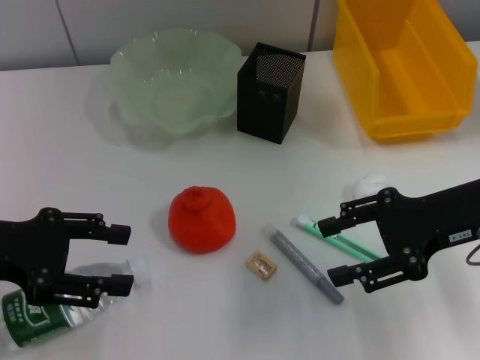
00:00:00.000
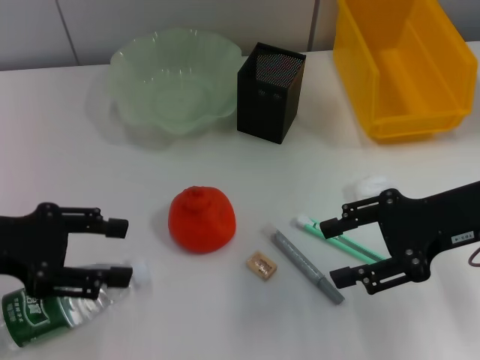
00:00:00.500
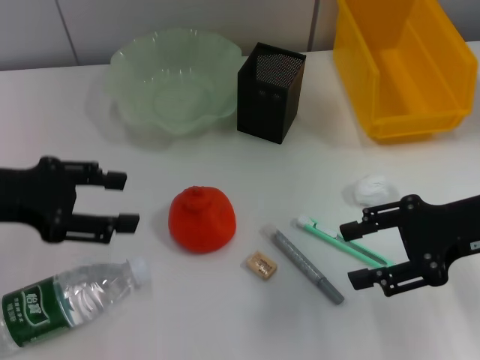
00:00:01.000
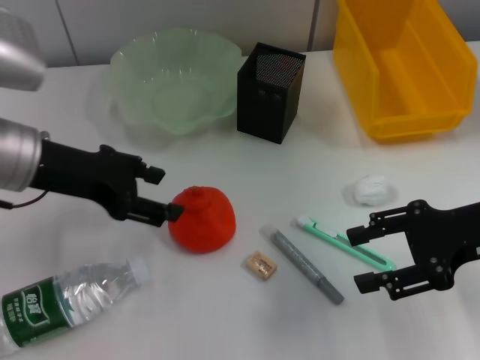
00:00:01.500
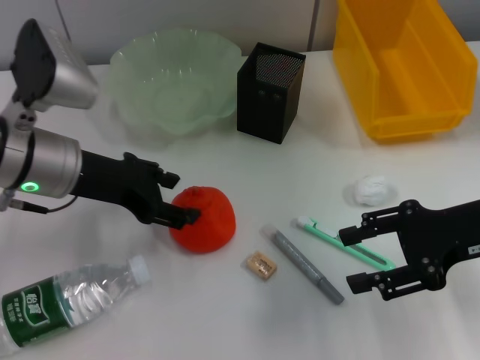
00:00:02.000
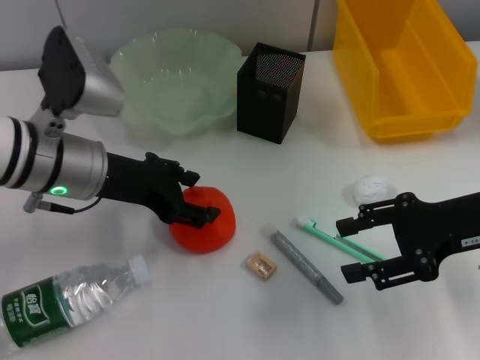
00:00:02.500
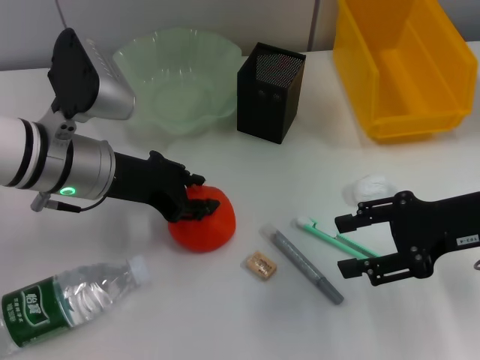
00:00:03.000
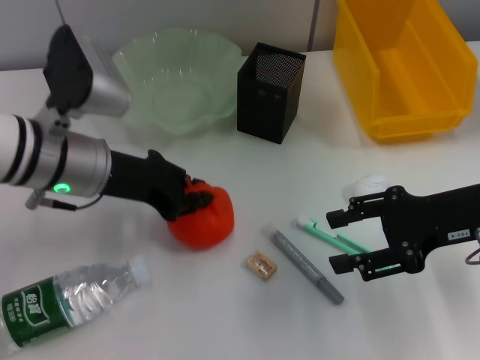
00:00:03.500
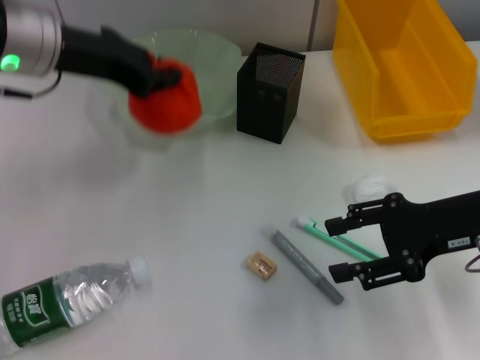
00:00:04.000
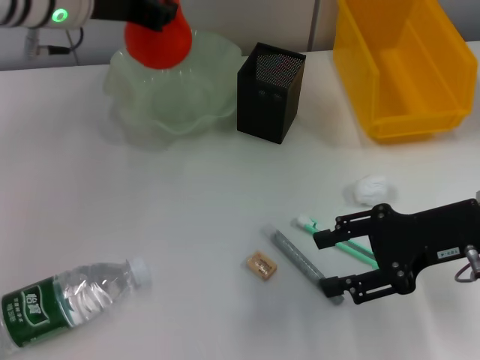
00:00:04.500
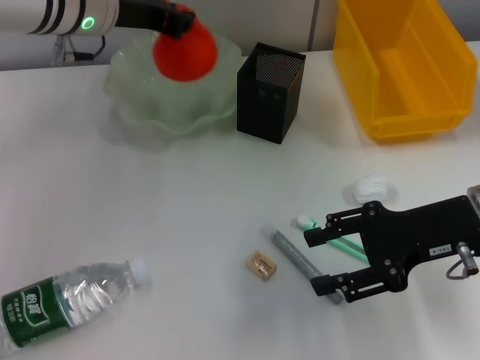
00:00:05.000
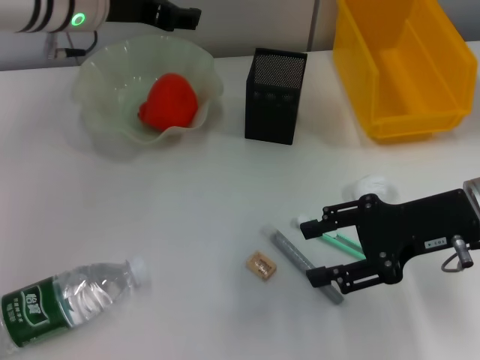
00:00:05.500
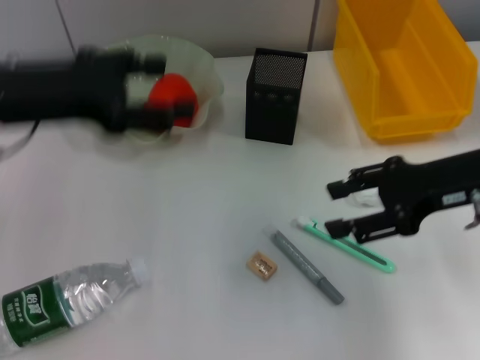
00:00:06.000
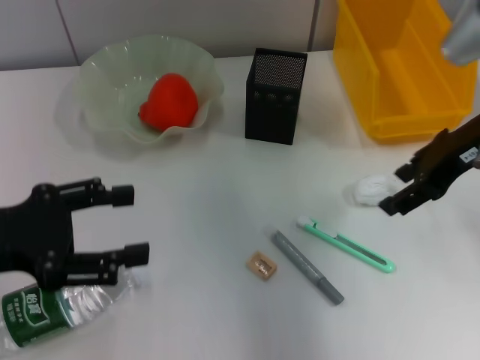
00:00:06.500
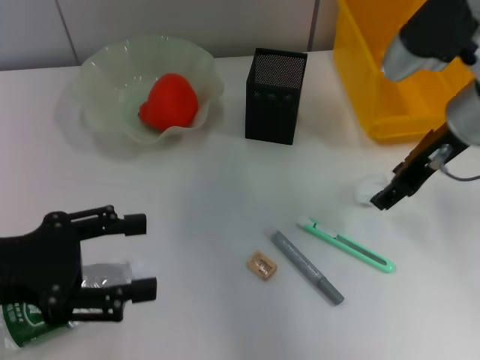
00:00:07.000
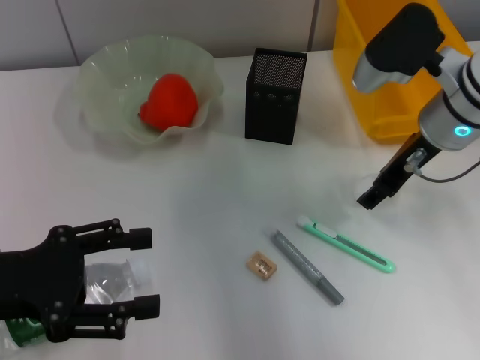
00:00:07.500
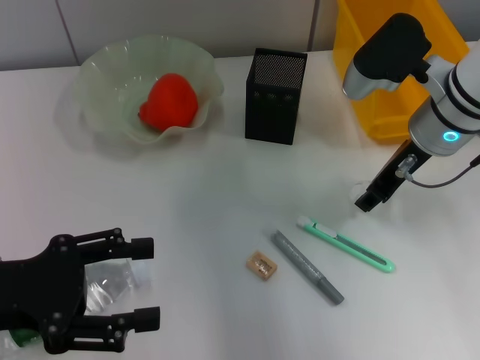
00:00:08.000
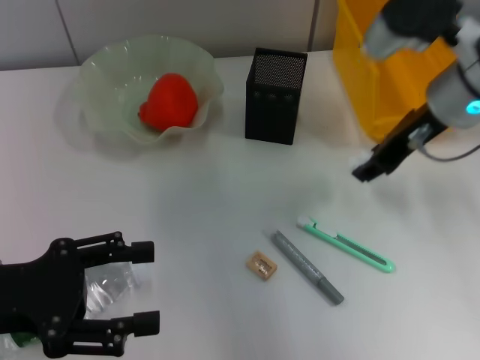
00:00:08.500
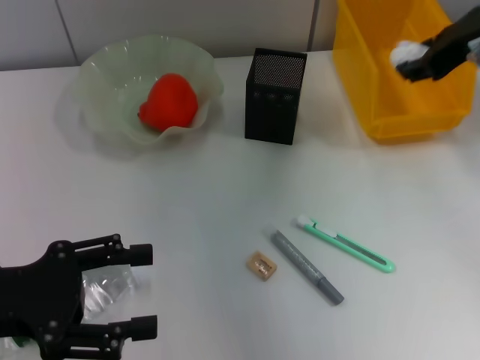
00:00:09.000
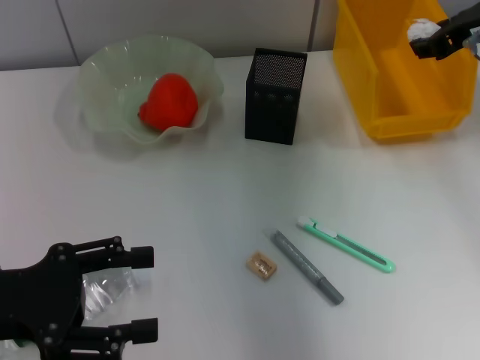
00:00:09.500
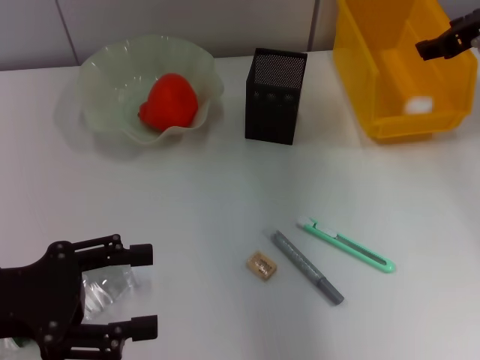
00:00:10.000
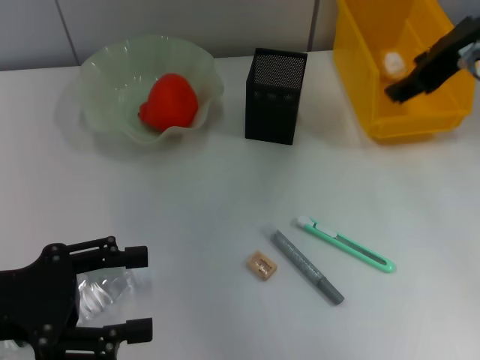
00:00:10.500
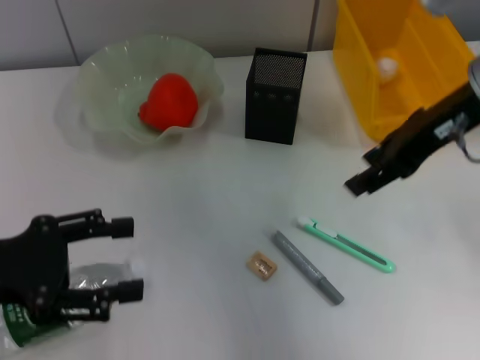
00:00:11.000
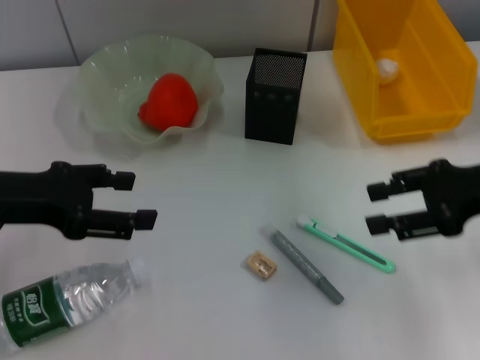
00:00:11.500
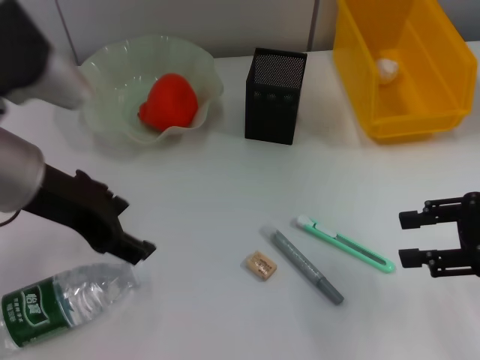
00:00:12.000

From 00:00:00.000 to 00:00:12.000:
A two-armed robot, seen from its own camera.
Step, from 00:00:00.000 to 00:00:03.000: Grab the orange with the left hand.
Step, from 00:00:03.500 to 00:00:05.000: Place the orange into the fruit bowl with the left hand.
Step, from 00:00:05.500 to 00:00:08.000: Grab the paper ball with the right hand.
Step, from 00:00:08.500 to 00:00:10.000: Place the paper ball into the trash can with the right hand.
From 00:00:00.000 to 00:00:02.000: The left gripper is displaced to the right and forward by roughly 10 cm.
From 00:00:02.000 to 00:00:04.000: The left gripper travels upward by some 5 cm, and closes its fingers.
From 00:00:04.000 to 00:00:06.000: The left gripper moves about 5 cm, and opens its fingers.
From 00:00:06.000 to 00:00:08.000: The right gripper moves forward and to the left, some 10 cm. Meanwhile the left gripper shifts roughly 15 cm backward and downward.
From 00:00:08.000 to 00:00:10.000: The right gripper goes some 10 cm to the right and upward.
From 00:00:10.000 to 00:00:12.000: The left gripper shifts roughly 15 cm to the right, forward and upward; the right gripper shifts about 20 cm backward and downward.

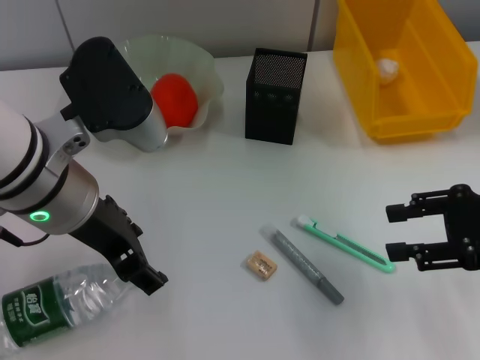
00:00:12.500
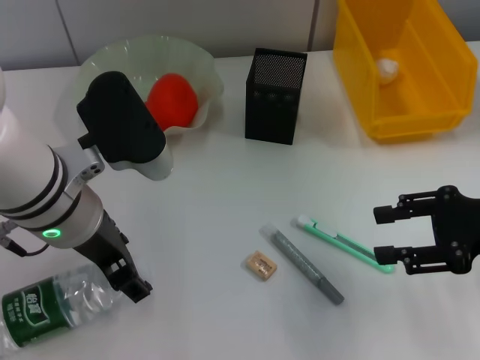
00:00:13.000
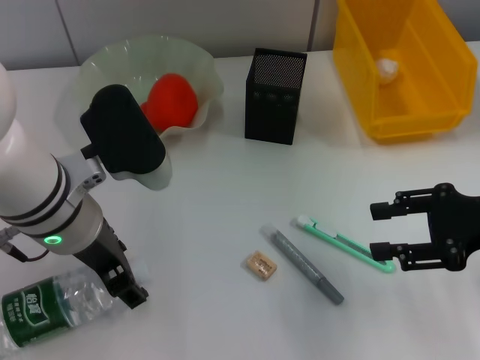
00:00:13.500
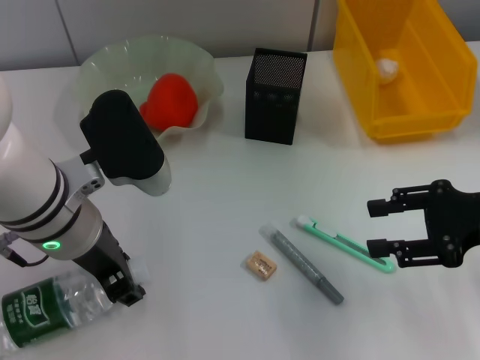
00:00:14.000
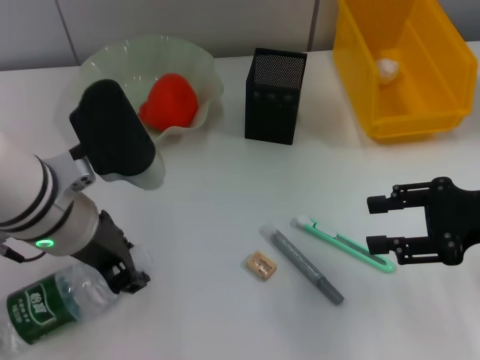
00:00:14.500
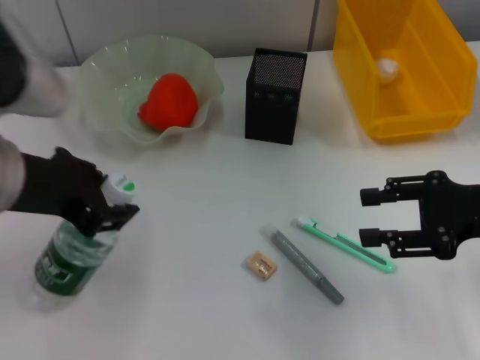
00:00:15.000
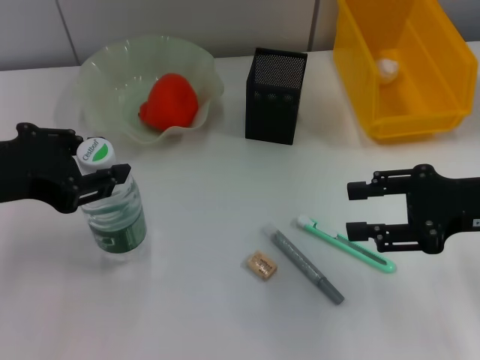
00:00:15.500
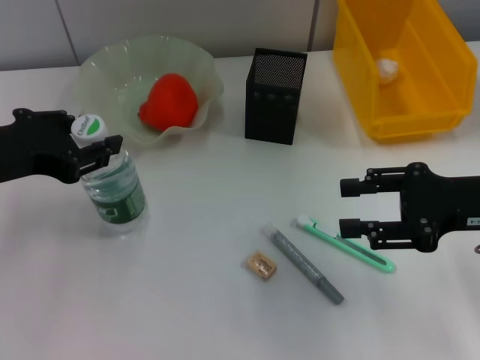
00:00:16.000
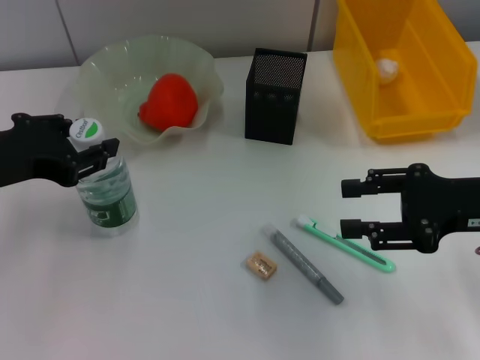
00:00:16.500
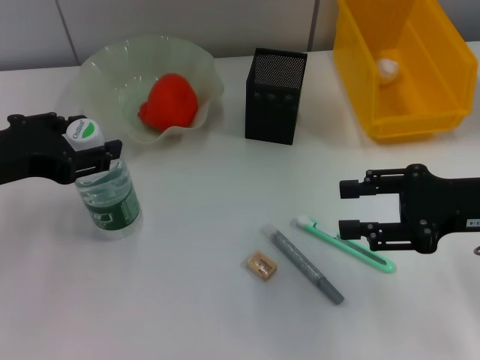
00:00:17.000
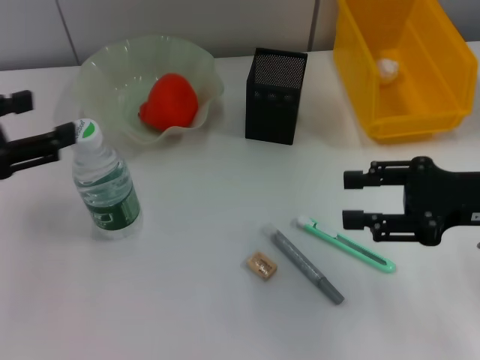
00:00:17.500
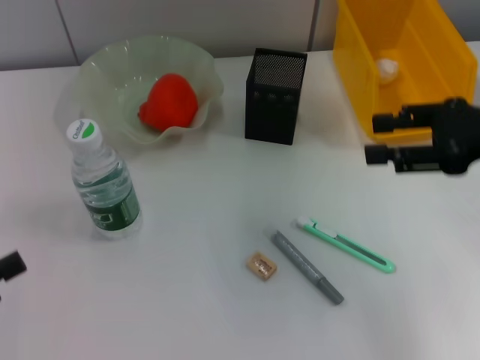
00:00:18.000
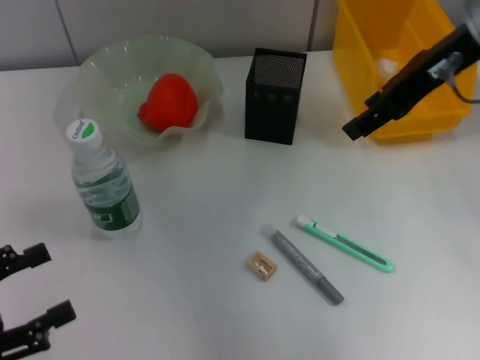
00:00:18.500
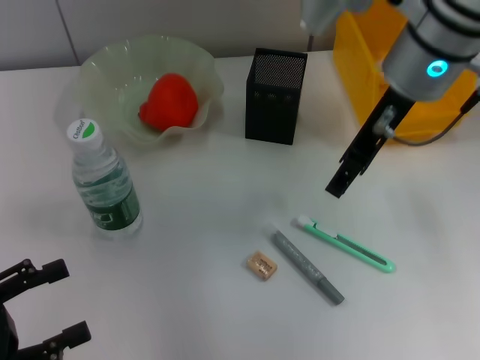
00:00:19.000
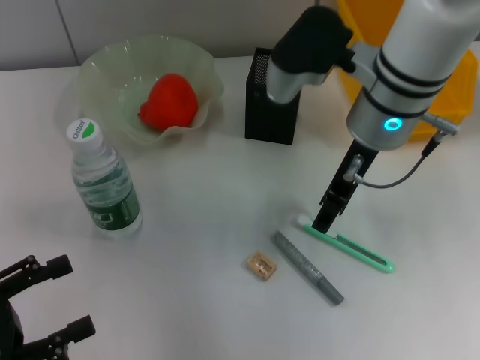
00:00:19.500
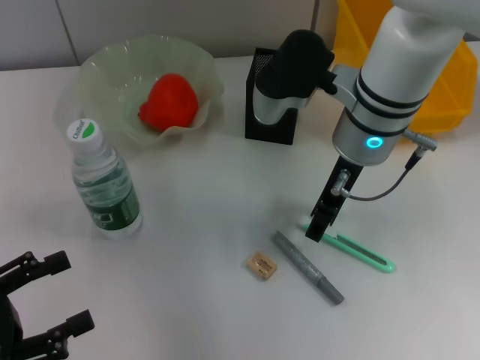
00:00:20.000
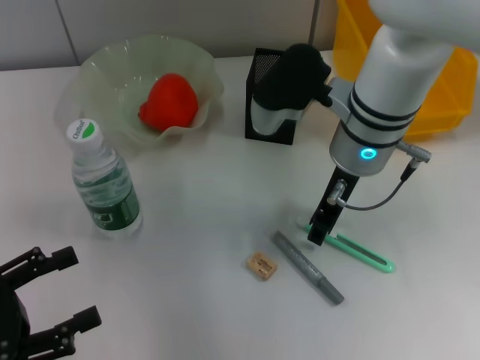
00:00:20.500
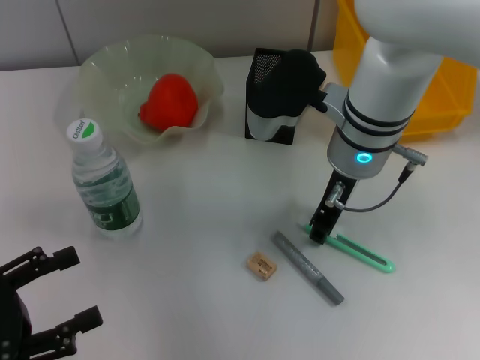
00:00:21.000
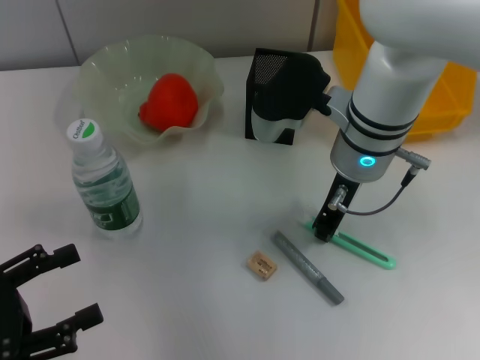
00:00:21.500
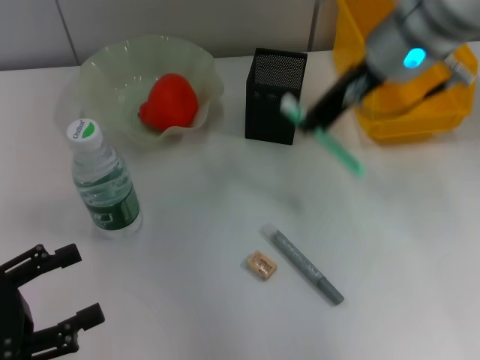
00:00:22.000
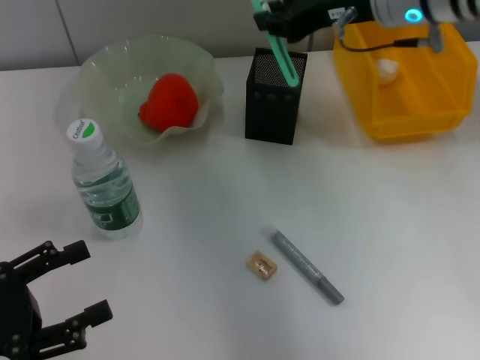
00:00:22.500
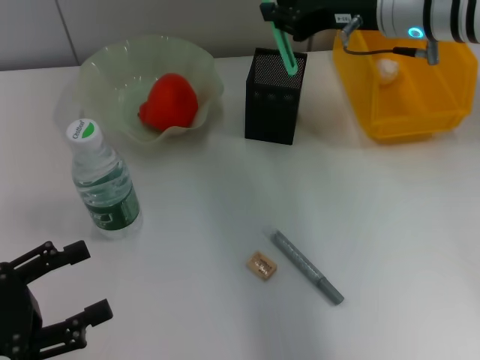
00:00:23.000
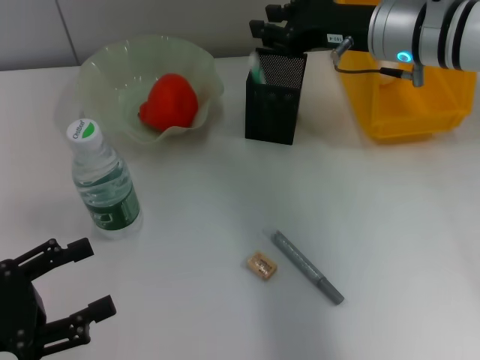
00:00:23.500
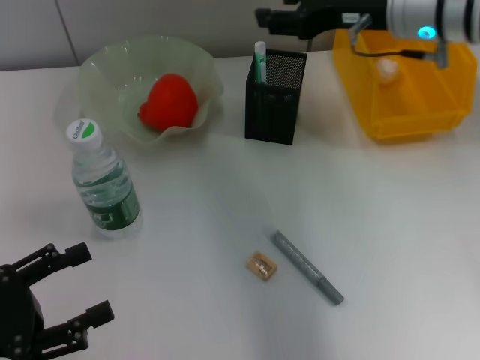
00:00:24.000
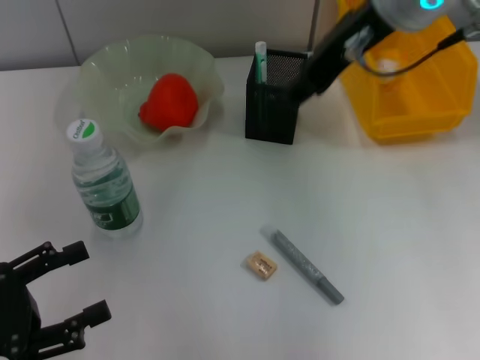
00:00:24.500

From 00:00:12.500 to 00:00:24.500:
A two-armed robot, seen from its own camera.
Step, from 00:00:12.500 to 00:00:14.500: Grab the water bottle with the left hand.
Step, from 00:00:15.000 to 00:00:17.000: Place the water bottle on the table with the left hand.
Step, from 00:00:17.500 to 00:00:21.500: Grab the blue utility knife with the right hand.
Step, from 00:00:22.000 to 00:00:23.500: Place the blue utility knife into the pen holder with the right hand.
From 00:00:12.500 to 00:00:14.500: The left gripper closes.
From 00:00:14.500 to 00:00:16.500: The left gripper travels to the left by approximately 10 cm.
From 00:00:16.500 to 00:00:18.500: The right gripper heads upward, forward and to the left, covering about 20 cm, while the left gripper travels backward, to the left and downward by roughly 15 cm, and opens up.
From 00:00:18.500 to 00:00:20.500: The right gripper moves downward and to the left, some 15 cm.
From 00:00:20.500 to 00:00:22.500: The right gripper shifts approximately 10 cm upward and to the right, and closes.
From 00:00:22.500 to 00:00:24.500: The right gripper moves upward, about 5 cm, and opens.

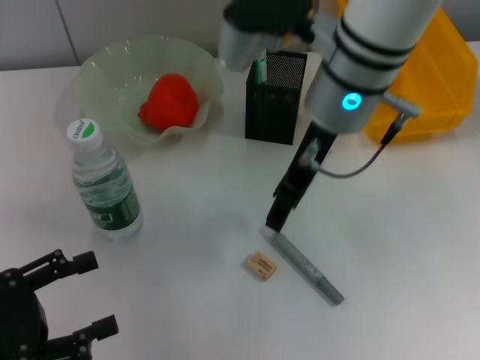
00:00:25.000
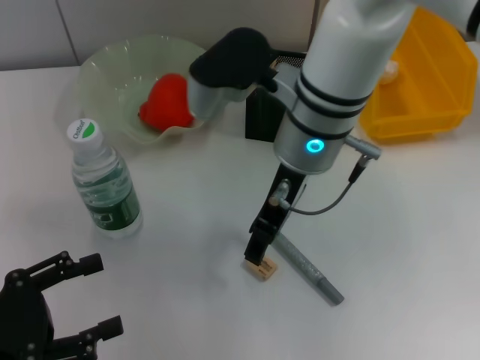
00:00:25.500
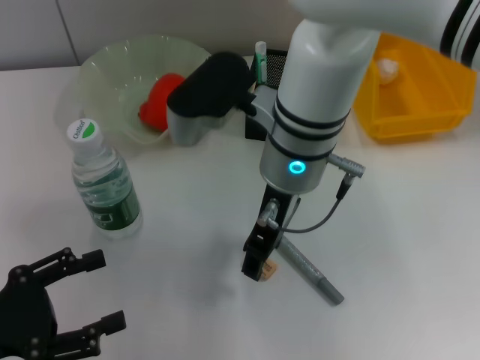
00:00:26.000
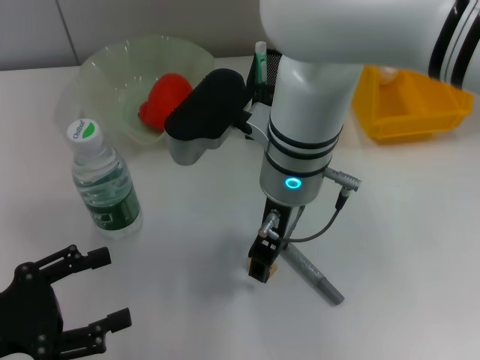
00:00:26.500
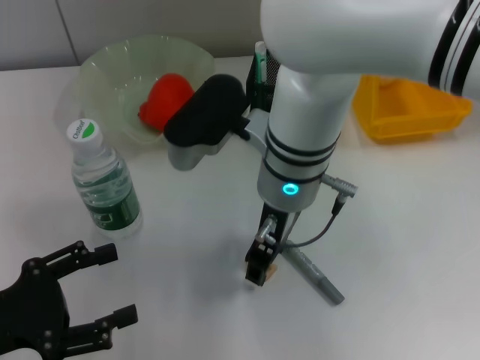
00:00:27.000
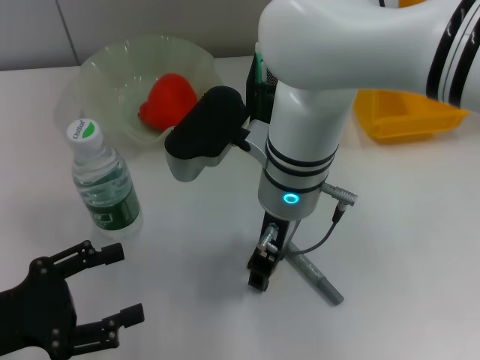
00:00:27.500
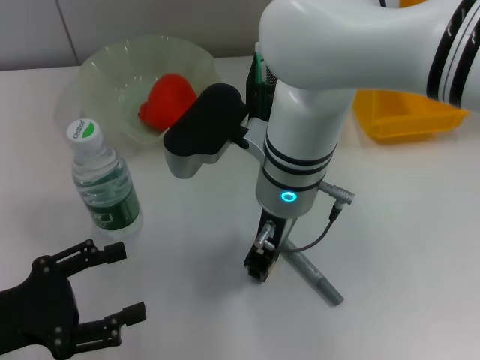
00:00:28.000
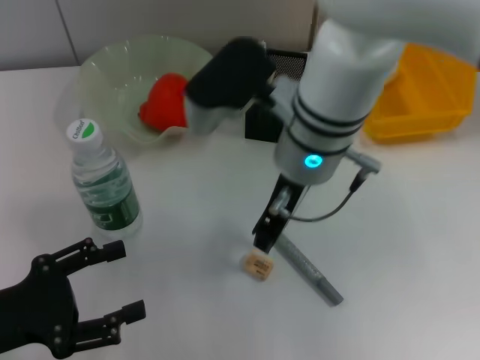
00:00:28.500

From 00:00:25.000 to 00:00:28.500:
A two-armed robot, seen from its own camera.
From 00:00:25.000 to 00:00:27.000: The right gripper is displaced downward and to the left by roughly 10 cm.
From 00:00:27.000 to 00:00:28.500: The right gripper closes up.
